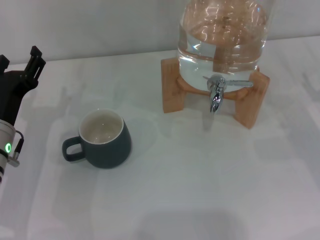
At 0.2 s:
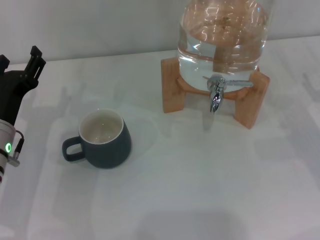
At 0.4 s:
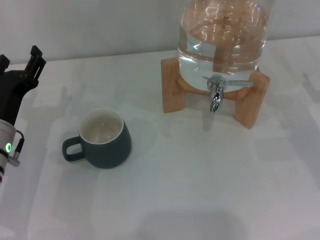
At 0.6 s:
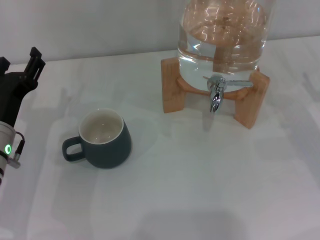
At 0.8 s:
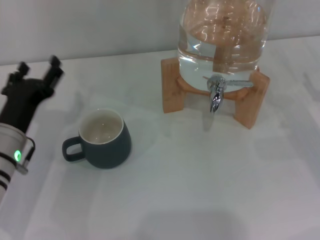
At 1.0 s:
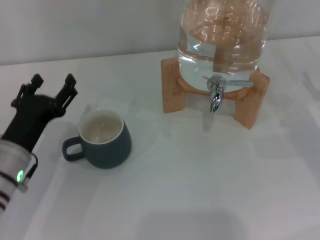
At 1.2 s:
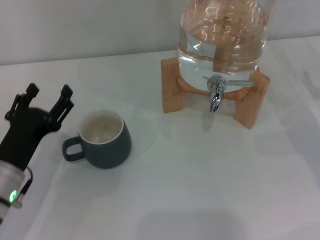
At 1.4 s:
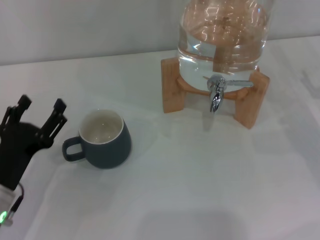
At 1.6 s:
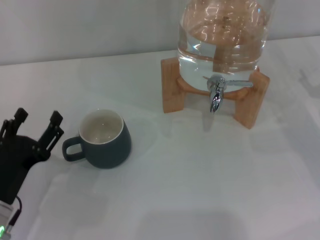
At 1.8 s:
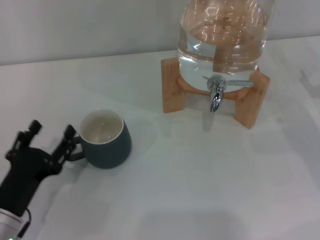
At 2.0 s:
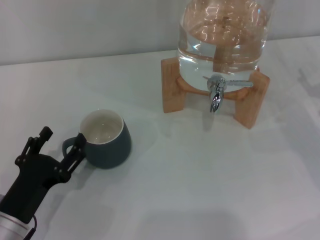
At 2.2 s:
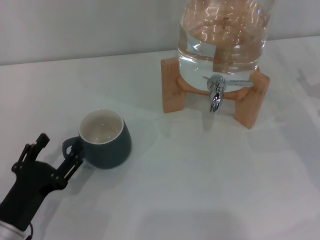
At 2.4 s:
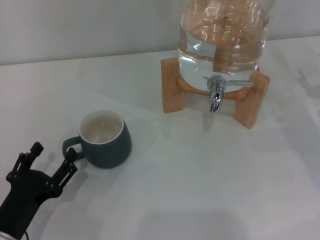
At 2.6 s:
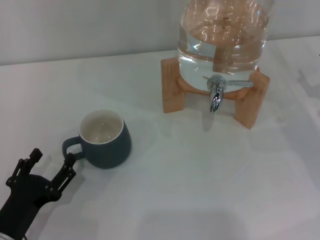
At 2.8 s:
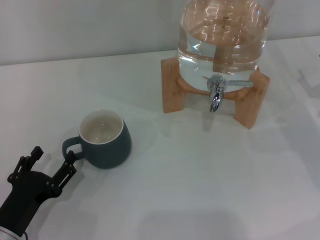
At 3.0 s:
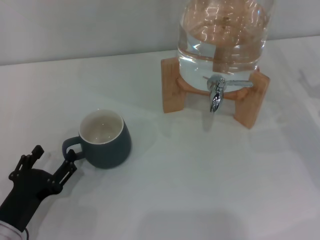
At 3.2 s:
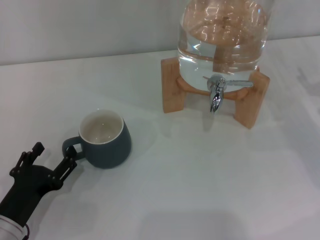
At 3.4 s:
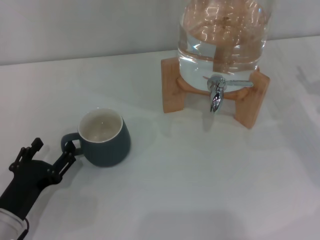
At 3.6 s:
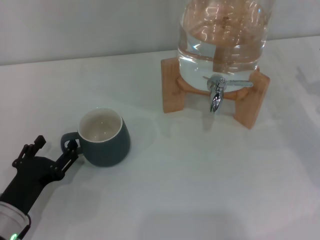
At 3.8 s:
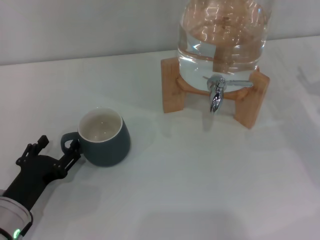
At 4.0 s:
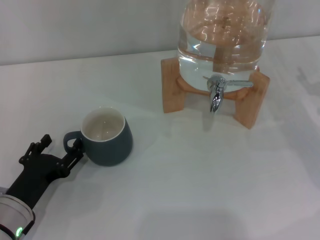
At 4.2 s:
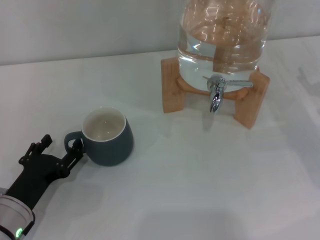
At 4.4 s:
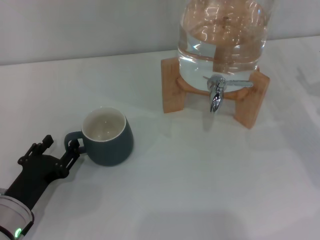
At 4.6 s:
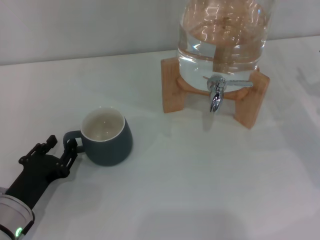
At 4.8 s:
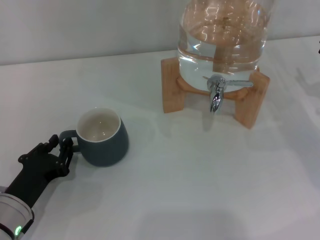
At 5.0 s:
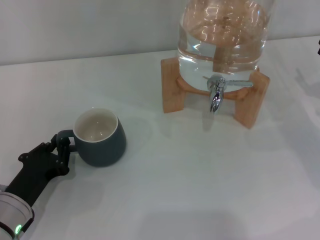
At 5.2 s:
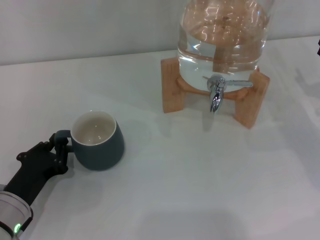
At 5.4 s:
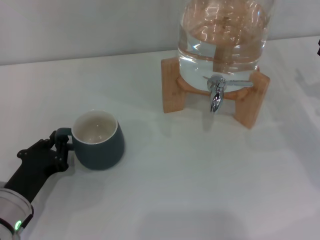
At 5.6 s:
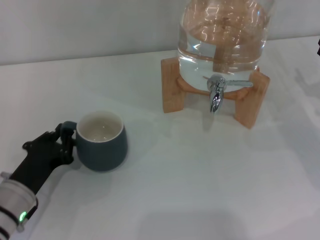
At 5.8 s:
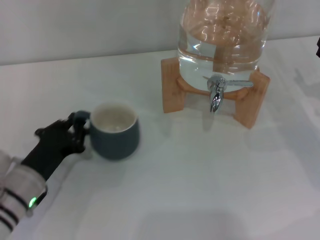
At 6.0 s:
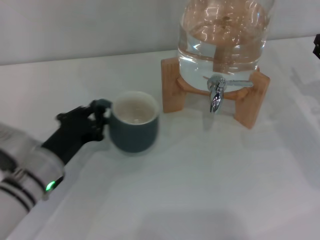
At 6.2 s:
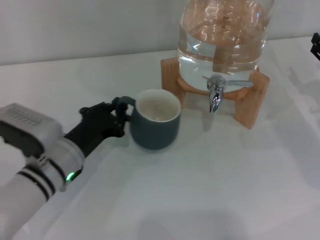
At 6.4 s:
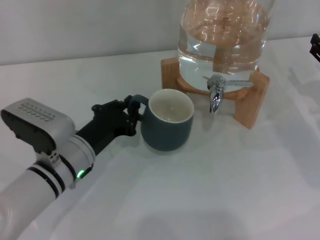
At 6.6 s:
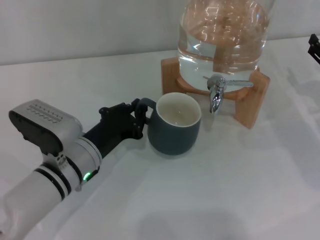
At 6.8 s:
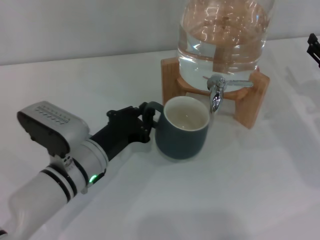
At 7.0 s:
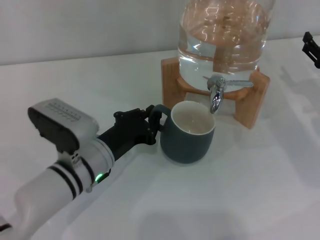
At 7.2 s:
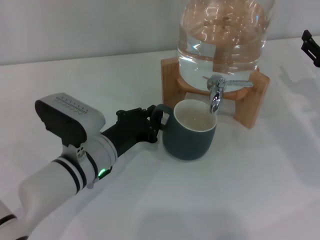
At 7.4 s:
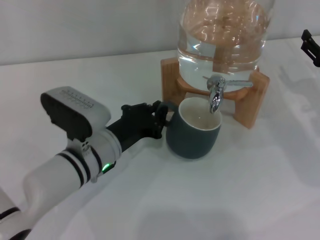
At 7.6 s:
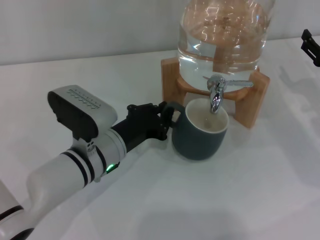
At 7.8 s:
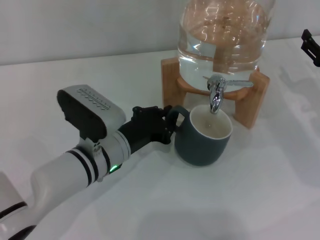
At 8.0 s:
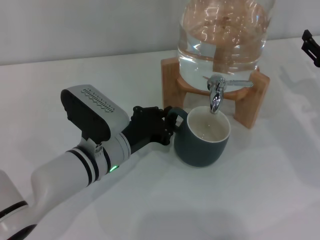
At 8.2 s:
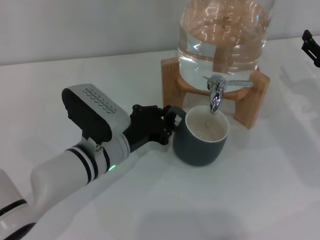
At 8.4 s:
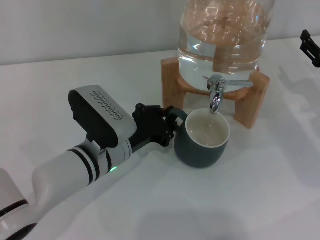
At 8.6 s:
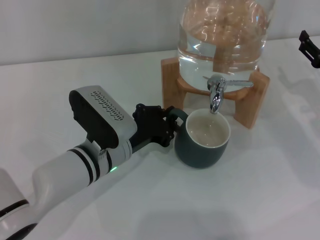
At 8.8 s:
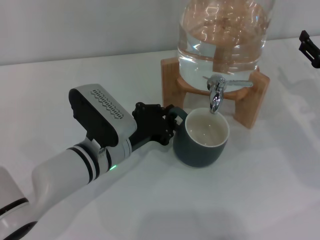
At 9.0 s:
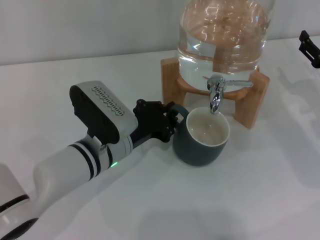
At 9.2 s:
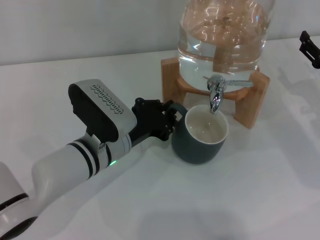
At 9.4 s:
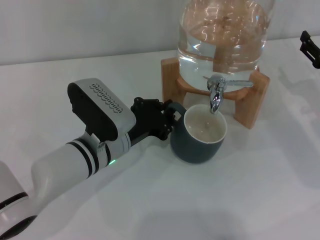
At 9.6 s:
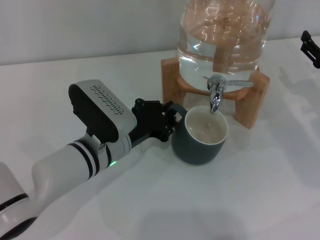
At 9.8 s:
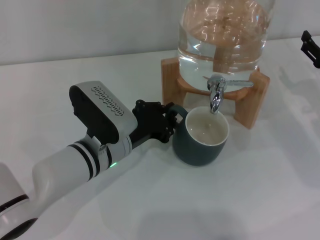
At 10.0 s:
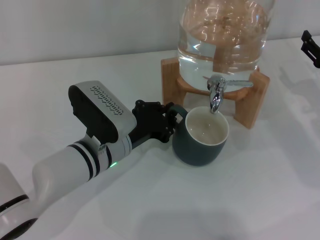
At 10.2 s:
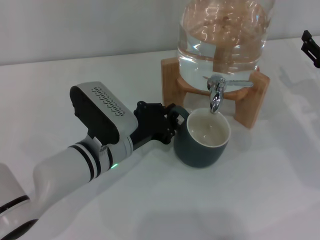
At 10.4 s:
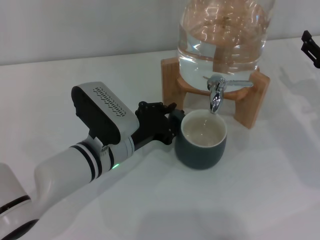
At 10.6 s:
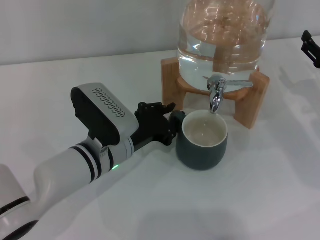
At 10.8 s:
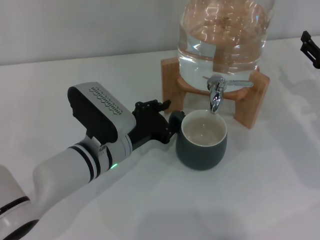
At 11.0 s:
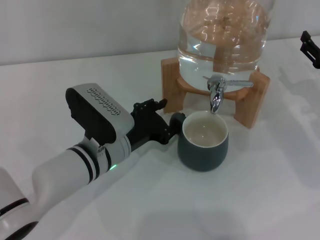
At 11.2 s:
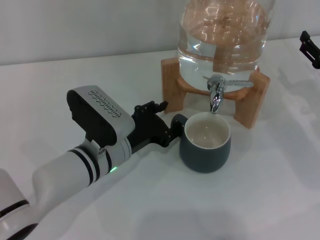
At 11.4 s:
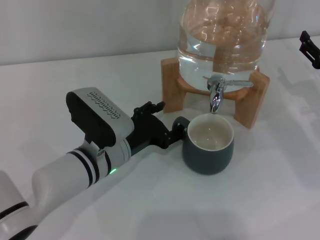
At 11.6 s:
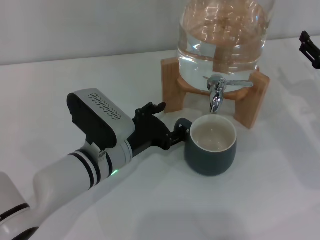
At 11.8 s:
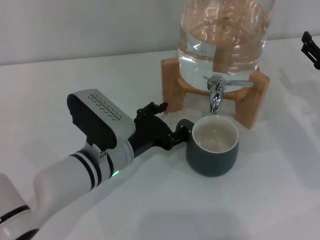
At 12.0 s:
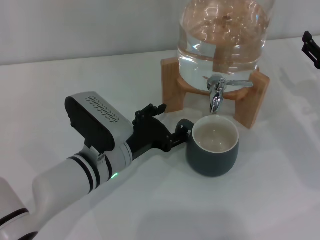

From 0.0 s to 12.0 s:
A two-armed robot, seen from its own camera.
Task of the whole recording: the left gripper pick up the black cup and place it horizontally under the faucet, the right gripper turn on the faucet to fill the cup, and then turn off the faucet.
From 0.0 s to 1.6 s: The left gripper is displaced backward by about 10 cm.
From 1.6 s to 4.4 s: The grippers move only a little.
From 4.4 s to 6.0 s: The left gripper goes some 5 cm forward, and closes.
From 6.0 s to 7.6 s: The left gripper is displaced to the right by some 10 cm.
From 7.6 s to 9.0 s: There are only small adjustments of the grippers.
From 9.0 s to 10.4 s: Both grippers stay about where they are.
From 10.4 s to 12.0 s: The left gripper opens its fingers.

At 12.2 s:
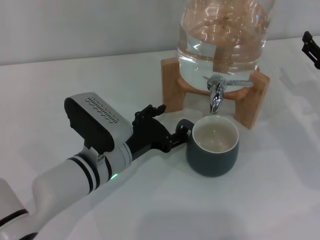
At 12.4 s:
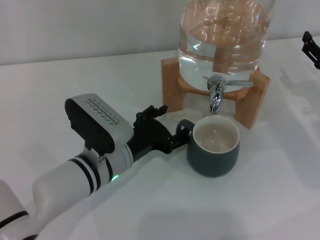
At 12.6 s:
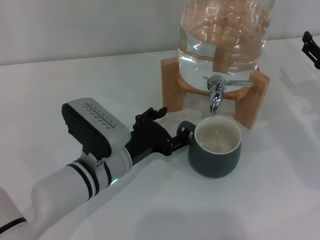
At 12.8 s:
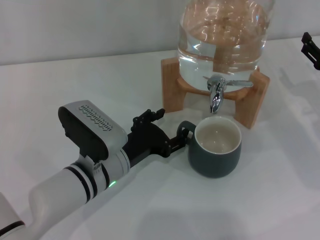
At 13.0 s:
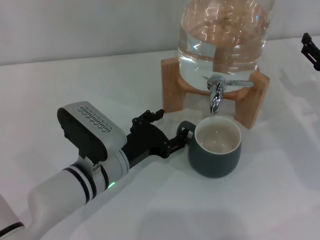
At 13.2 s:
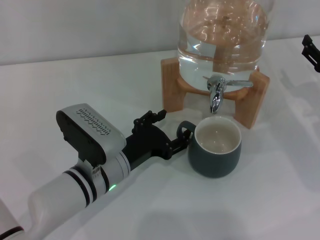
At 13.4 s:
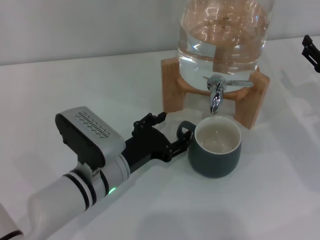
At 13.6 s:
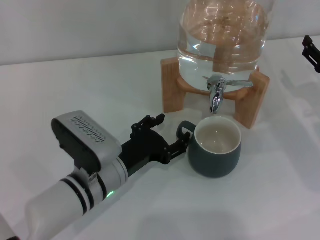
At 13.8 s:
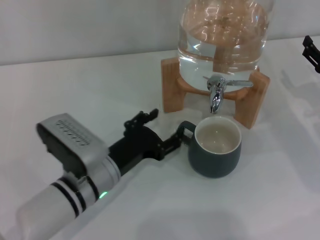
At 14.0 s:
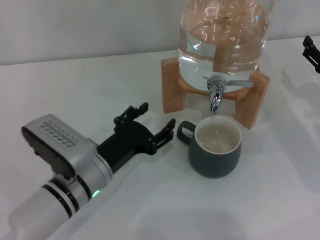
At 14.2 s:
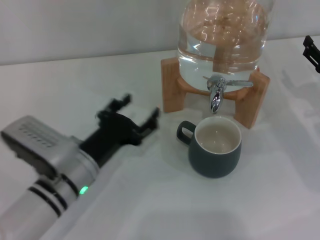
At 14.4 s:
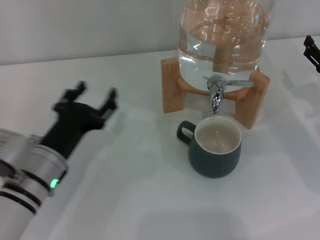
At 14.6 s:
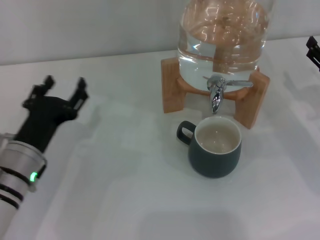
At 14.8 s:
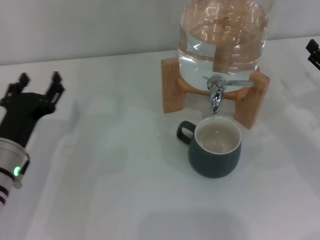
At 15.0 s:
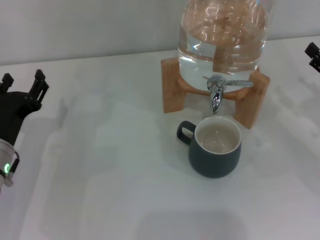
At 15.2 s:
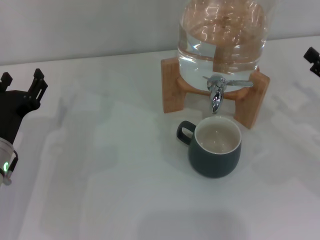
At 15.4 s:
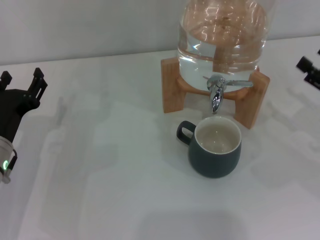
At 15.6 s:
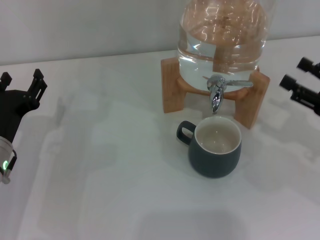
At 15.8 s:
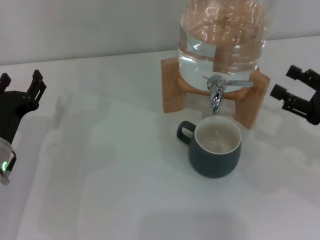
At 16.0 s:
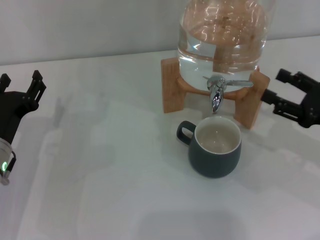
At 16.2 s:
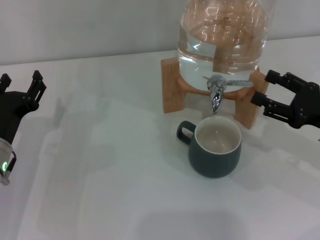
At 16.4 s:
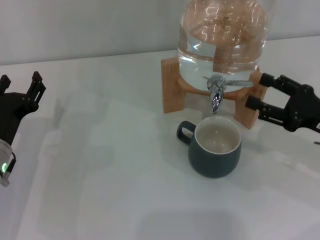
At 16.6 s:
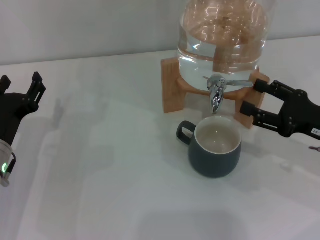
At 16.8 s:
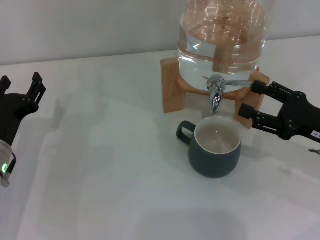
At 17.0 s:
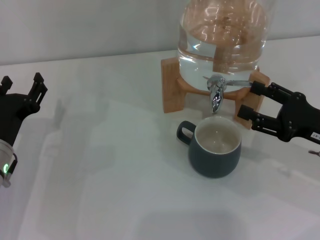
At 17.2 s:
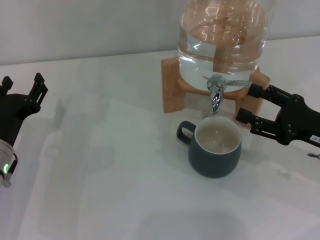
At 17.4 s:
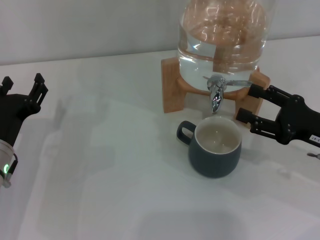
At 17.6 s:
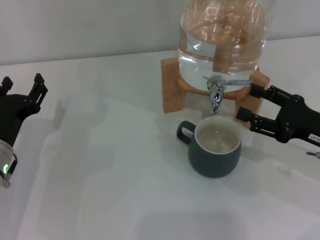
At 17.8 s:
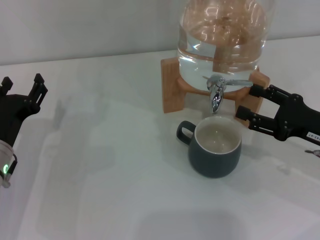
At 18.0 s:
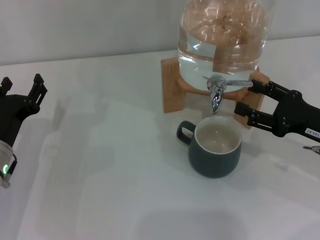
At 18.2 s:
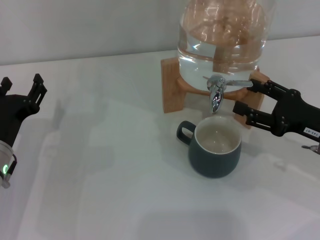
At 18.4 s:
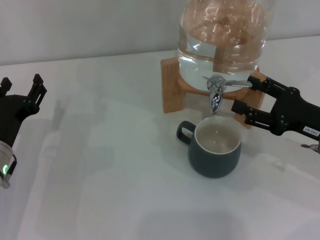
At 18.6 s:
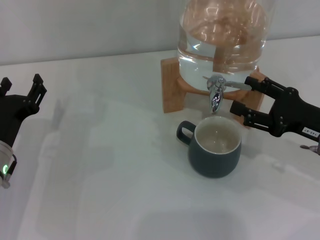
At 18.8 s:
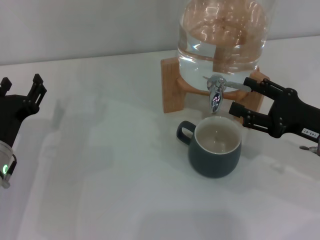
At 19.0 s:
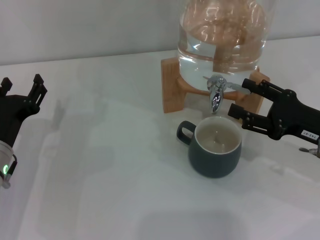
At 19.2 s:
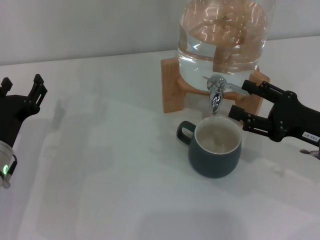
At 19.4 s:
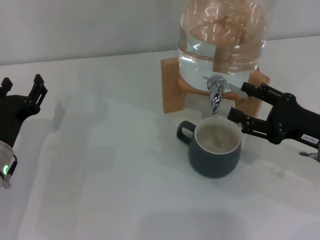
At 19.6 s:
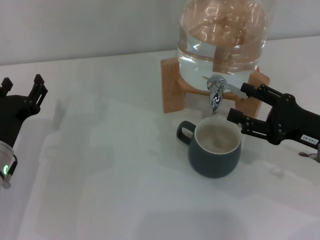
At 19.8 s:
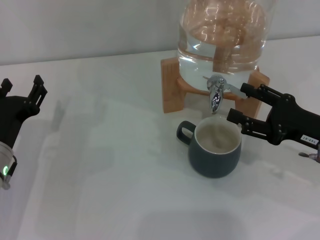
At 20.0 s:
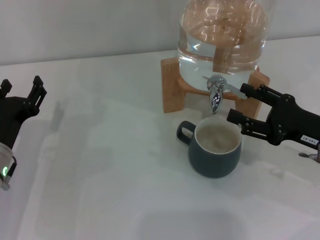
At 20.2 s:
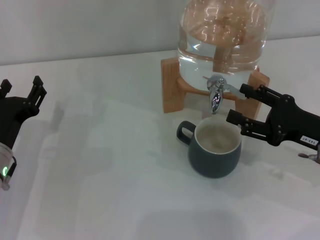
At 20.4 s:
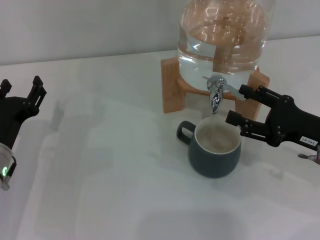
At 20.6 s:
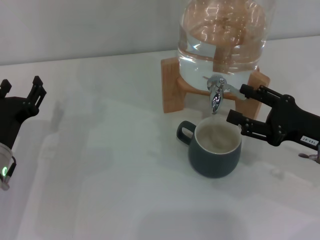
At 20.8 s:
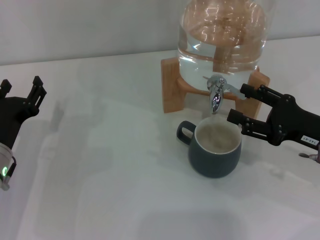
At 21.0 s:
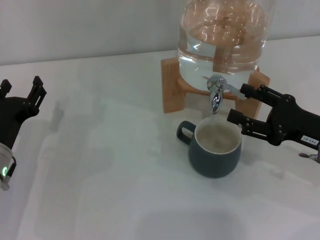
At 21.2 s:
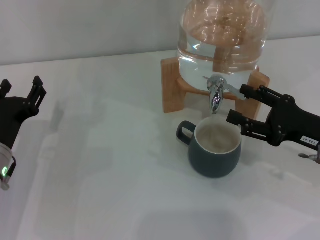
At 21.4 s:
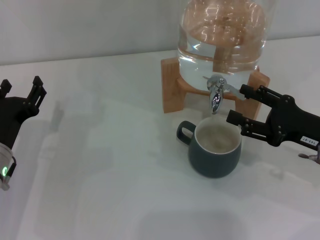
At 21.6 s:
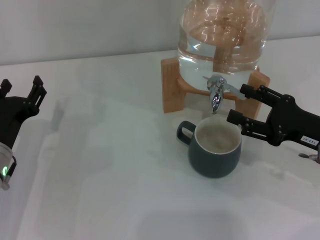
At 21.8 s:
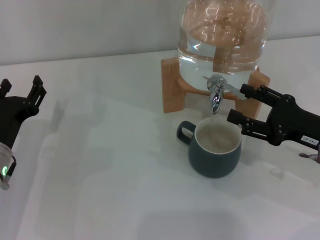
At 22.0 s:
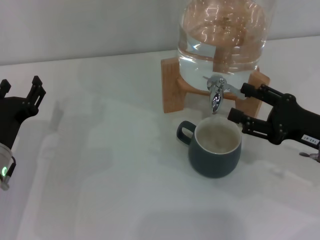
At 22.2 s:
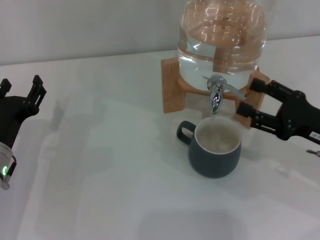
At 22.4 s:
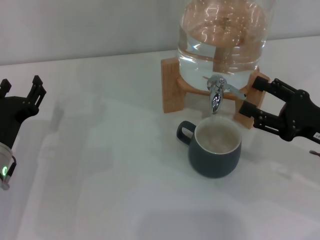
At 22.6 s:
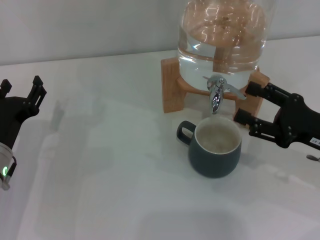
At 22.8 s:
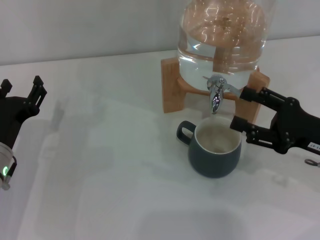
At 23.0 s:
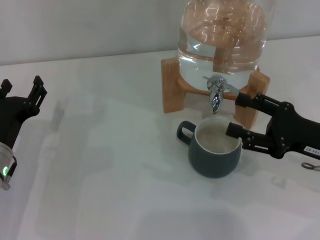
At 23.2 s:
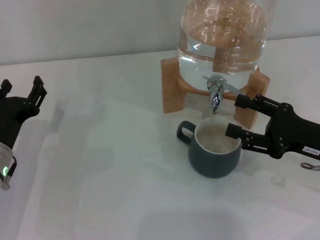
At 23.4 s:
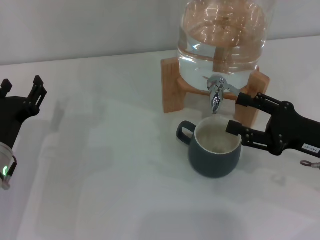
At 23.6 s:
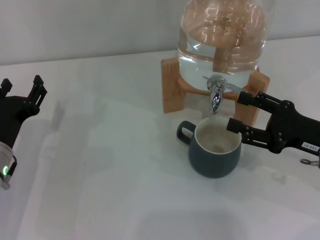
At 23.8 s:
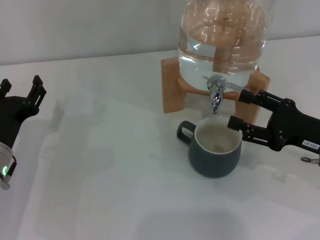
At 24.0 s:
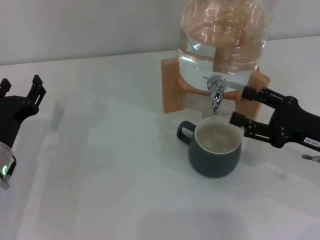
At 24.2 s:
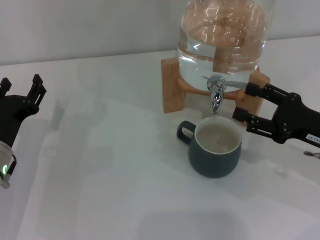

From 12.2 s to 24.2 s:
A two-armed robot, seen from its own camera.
Task of the whole recording: the left gripper pick up the black cup and place it horizontally under the faucet, the right gripper turn on the faucet to fill the cup, and then turn off the faucet.
Step, from 13.6 s to 21.8 s: Open the dispenser valve and fill the cup with water with the right gripper.
From 12.2 s to 13.8 s: There are only small adjustments of the grippers.
From 13.8 s to 15.2 s: The right gripper travels backward by roughly 5 cm. Meanwhile the left gripper travels to the left by about 10 cm.
From 15.2 s to 16.6 s: The right gripper moves to the left, roughly 5 cm.
From 16.6 s to 18.2 s: Both grippers stay about where they are.
From 18.2 s to 21.2 s: The two grippers keep their place.
From 21.2 s to 22.6 s: Neither gripper changes place.
From 22.6 s to 24.2 s: The two grippers keep their place.
